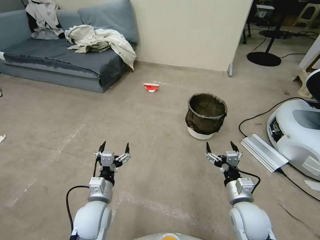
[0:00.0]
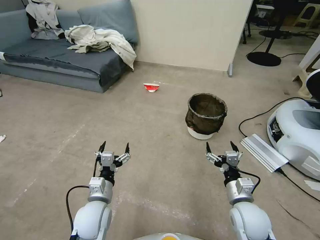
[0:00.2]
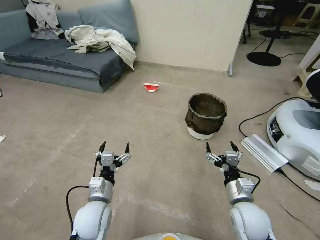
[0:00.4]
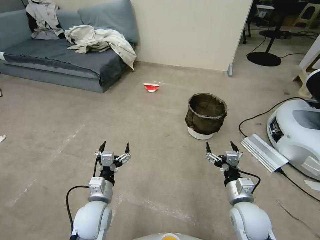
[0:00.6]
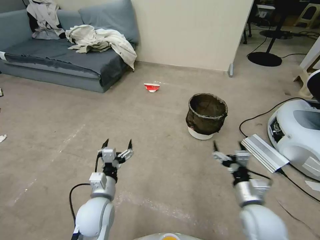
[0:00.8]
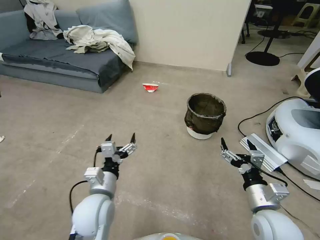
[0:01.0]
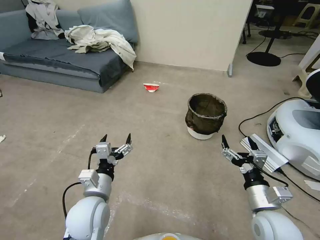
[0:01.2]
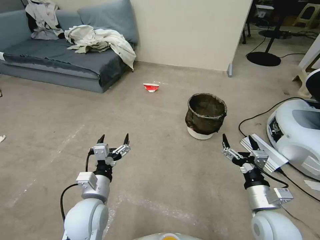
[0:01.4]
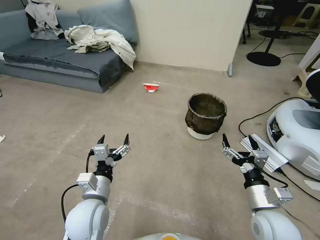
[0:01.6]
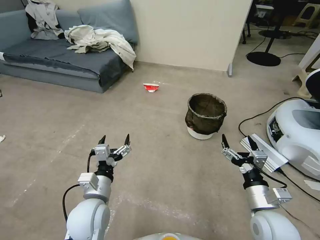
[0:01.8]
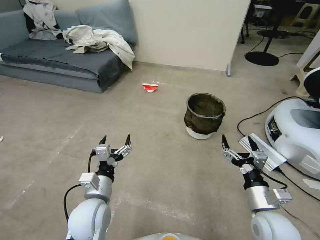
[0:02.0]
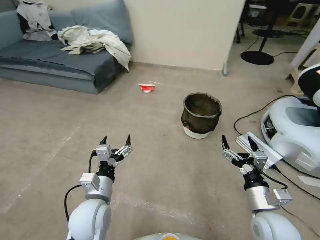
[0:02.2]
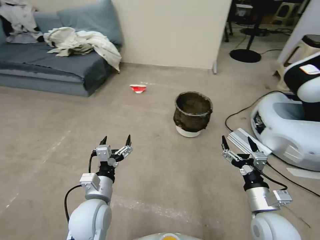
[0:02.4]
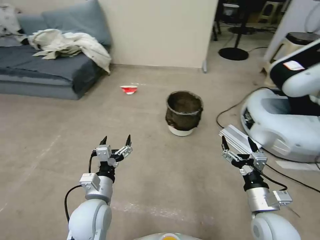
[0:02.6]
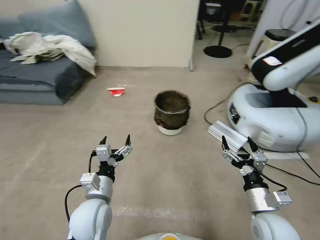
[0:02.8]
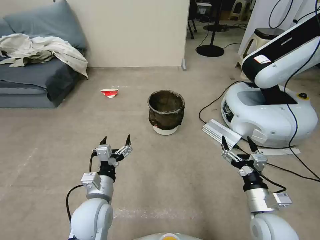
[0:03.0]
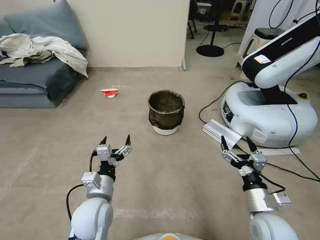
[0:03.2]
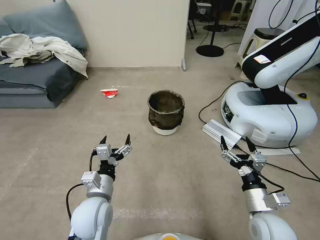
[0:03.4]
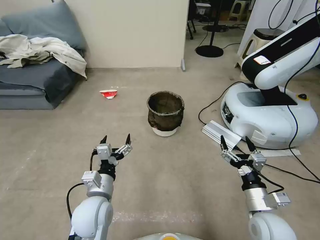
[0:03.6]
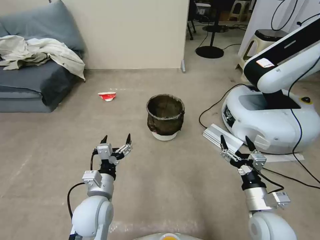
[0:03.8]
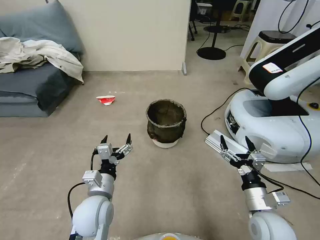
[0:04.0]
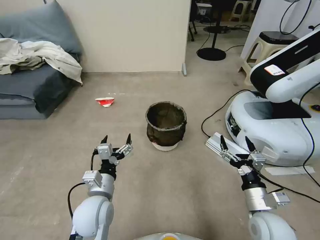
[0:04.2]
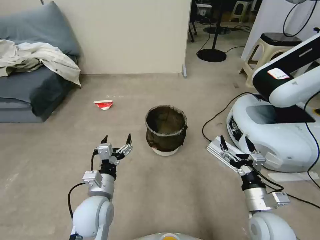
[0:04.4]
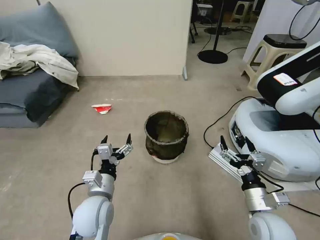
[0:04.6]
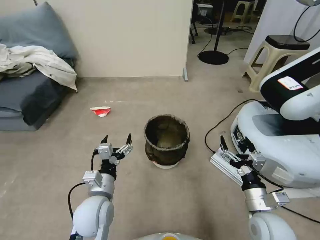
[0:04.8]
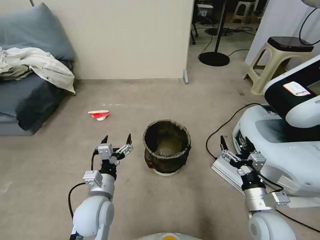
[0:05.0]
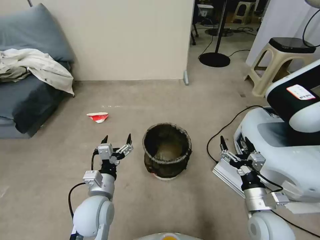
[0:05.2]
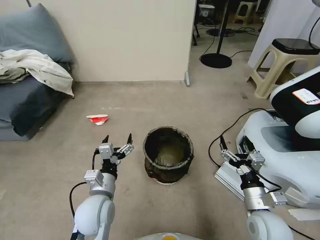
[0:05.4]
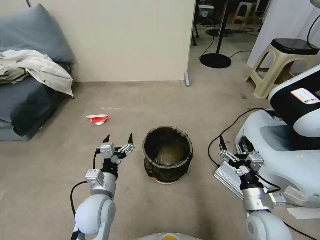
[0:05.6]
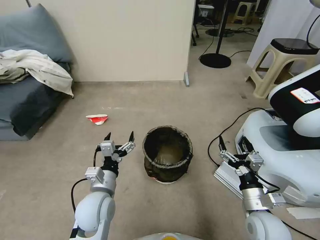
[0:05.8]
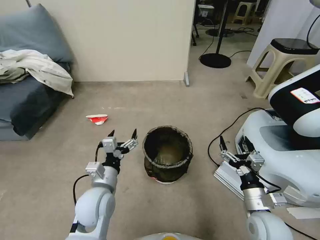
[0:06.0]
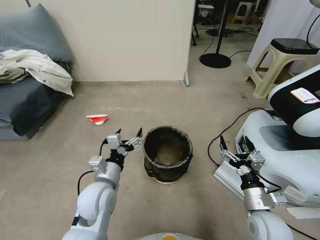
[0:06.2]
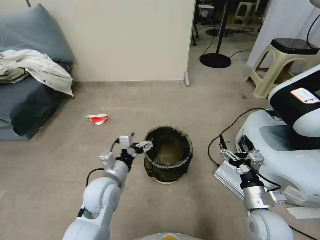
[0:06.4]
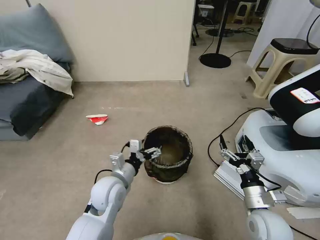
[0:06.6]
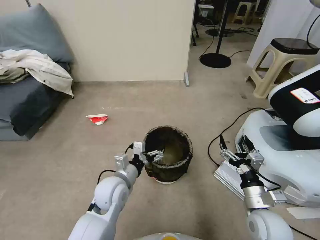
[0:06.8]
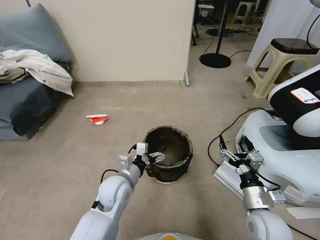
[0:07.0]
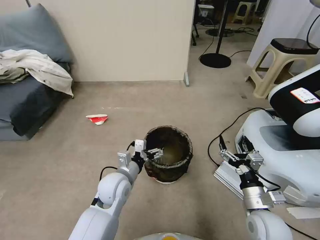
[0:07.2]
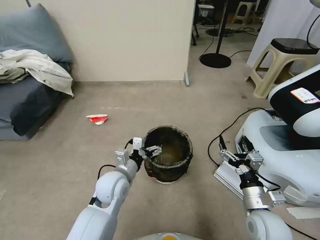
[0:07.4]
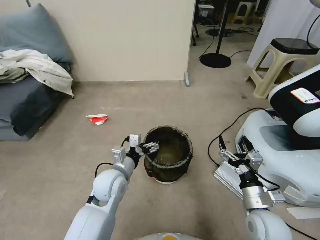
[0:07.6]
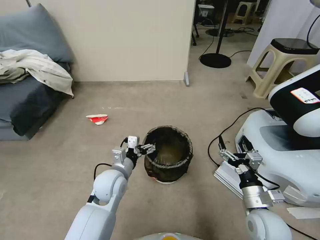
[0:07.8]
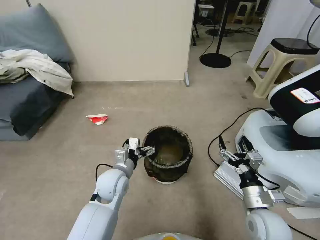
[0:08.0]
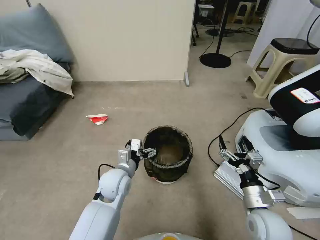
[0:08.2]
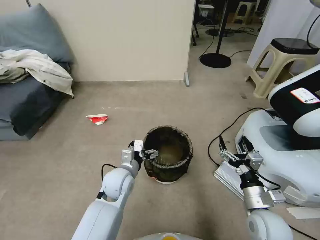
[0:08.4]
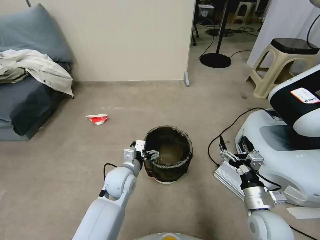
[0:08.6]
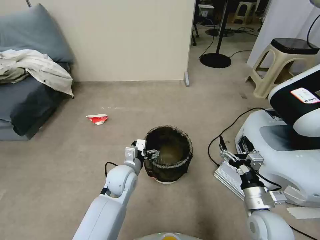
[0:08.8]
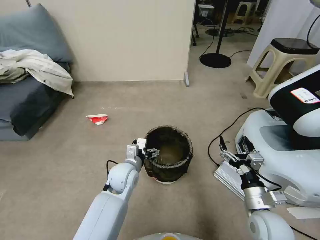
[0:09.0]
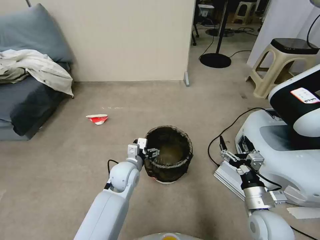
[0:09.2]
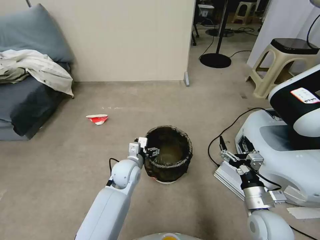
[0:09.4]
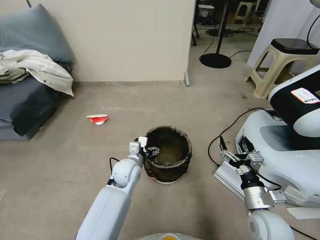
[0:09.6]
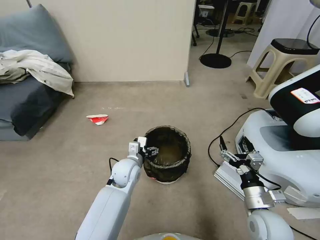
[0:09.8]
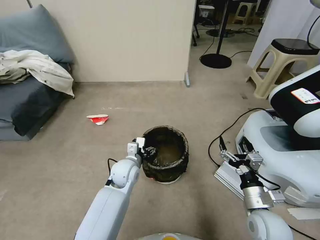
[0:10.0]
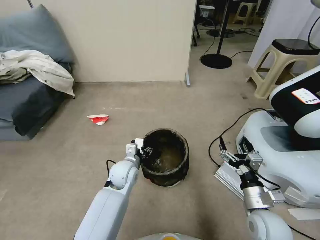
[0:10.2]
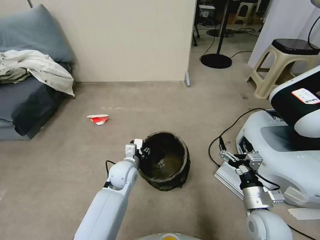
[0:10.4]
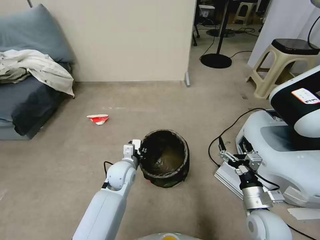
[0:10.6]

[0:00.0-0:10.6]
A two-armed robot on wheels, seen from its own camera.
Task of the whole recording: Pick up the trash can from the floor.
0:06.0 to 0:07.6: The left gripper moves forward, about 5 cm.
0:07.6 to 0:09.0: The left gripper changes place by some 5 cm.
0:09.0 to 0:10.6: The left gripper closes its fingers.

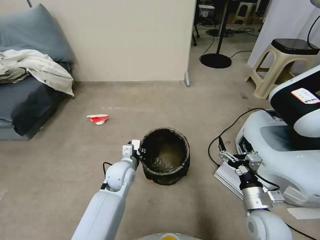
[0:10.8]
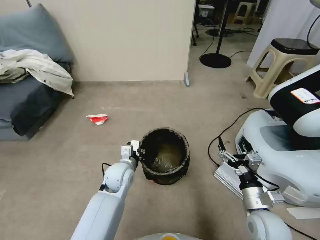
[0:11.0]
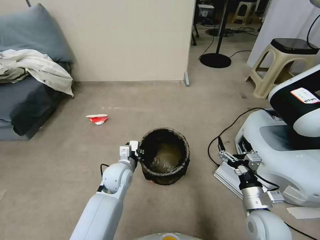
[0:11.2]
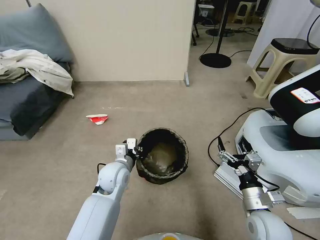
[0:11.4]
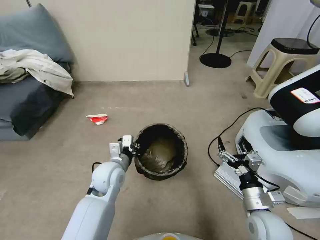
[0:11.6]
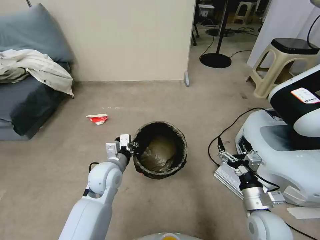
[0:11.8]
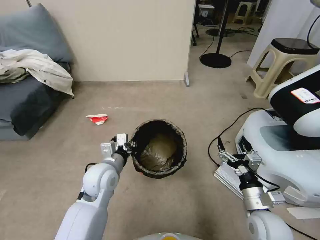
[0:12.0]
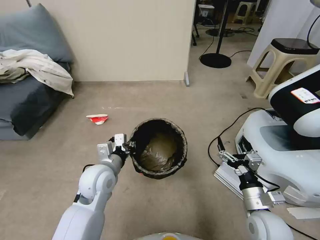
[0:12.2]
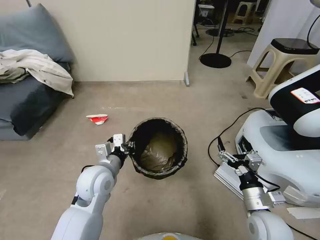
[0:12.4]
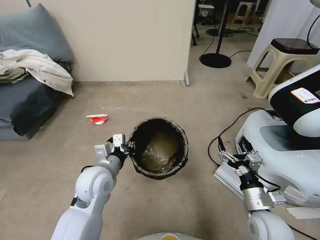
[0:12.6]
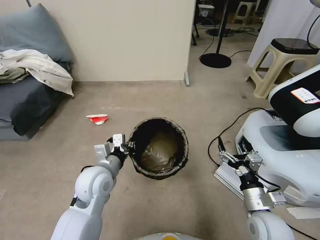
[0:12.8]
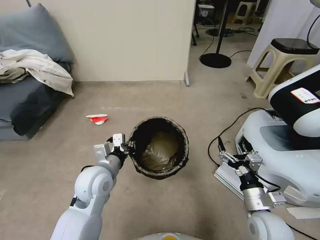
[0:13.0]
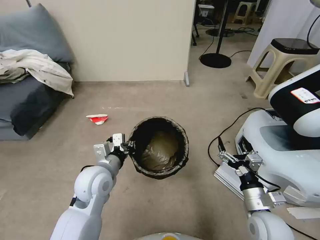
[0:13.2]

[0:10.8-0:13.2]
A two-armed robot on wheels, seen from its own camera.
Task of the whole recording: Pick up the trash can from the floor.
0:10.8 to 0:12.0: The left gripper goes about 5 cm upward.
0:12.0 to 0:13.2: There are only small adjustments of the grippers.

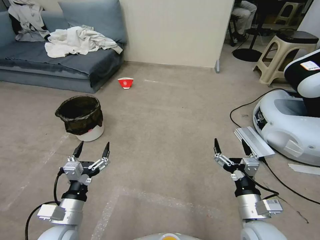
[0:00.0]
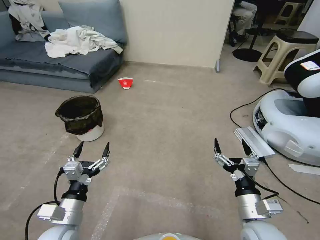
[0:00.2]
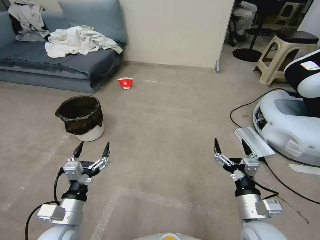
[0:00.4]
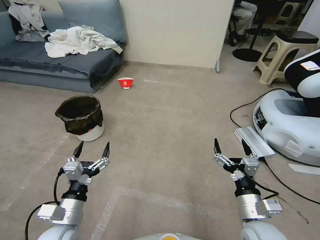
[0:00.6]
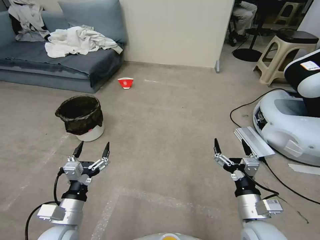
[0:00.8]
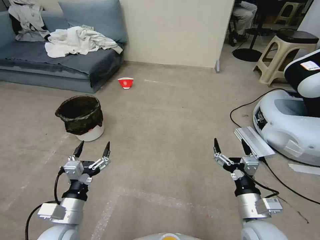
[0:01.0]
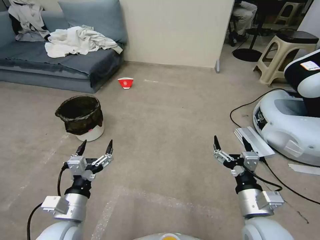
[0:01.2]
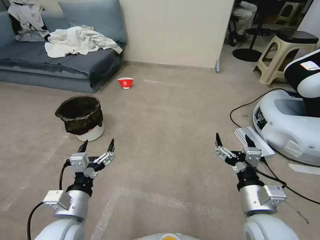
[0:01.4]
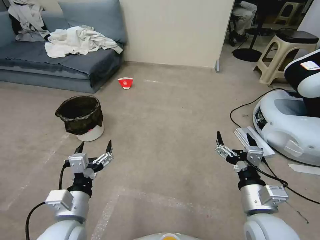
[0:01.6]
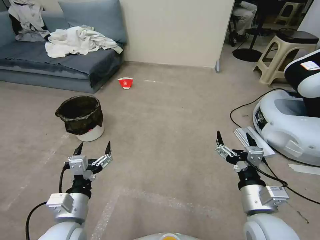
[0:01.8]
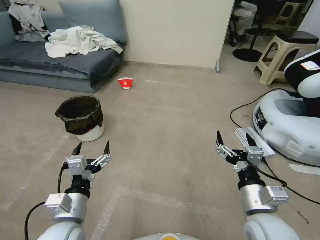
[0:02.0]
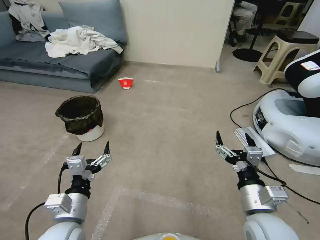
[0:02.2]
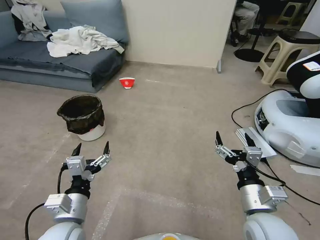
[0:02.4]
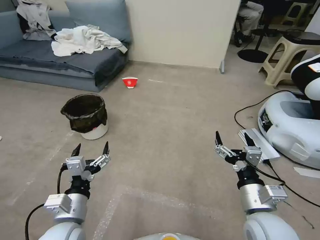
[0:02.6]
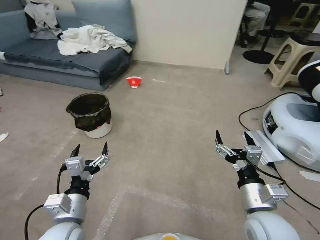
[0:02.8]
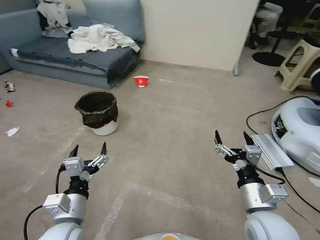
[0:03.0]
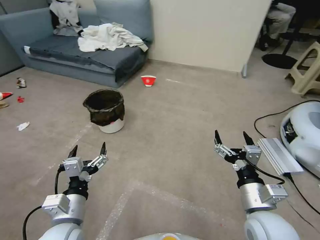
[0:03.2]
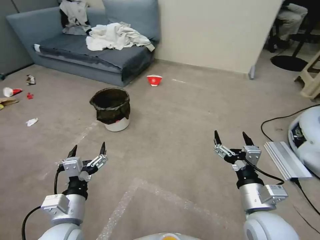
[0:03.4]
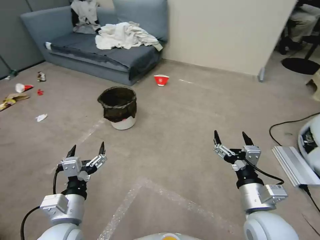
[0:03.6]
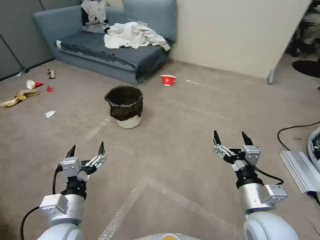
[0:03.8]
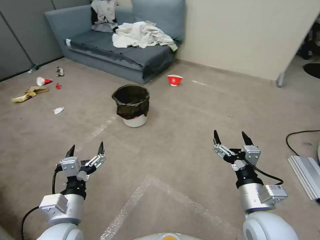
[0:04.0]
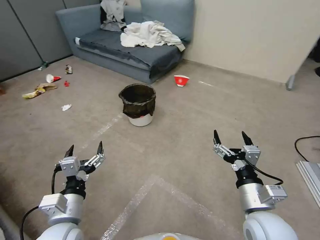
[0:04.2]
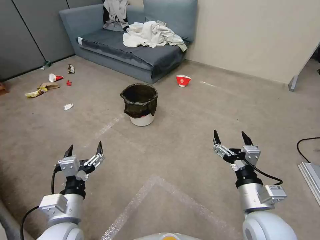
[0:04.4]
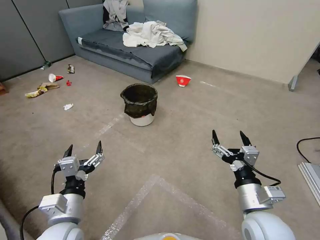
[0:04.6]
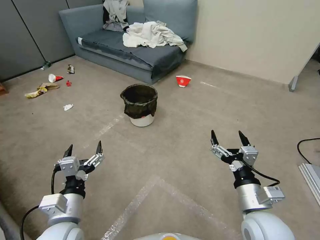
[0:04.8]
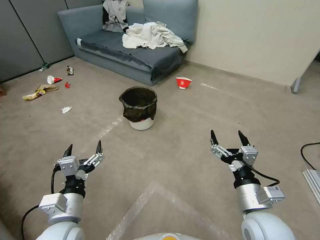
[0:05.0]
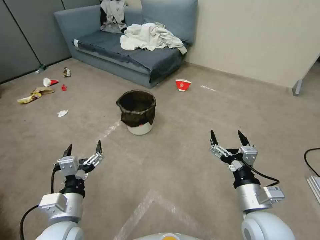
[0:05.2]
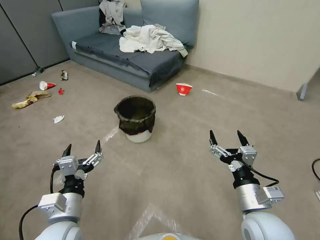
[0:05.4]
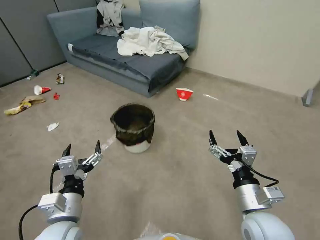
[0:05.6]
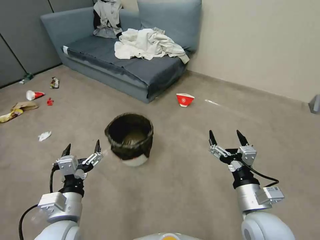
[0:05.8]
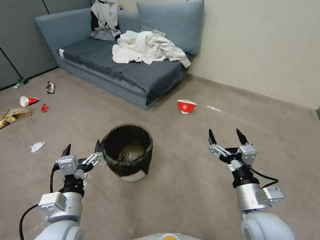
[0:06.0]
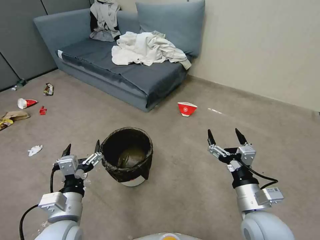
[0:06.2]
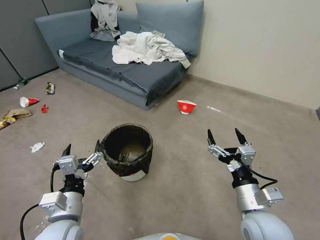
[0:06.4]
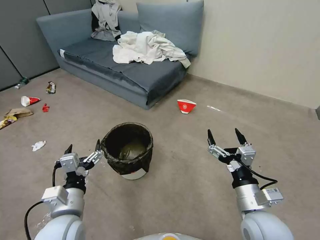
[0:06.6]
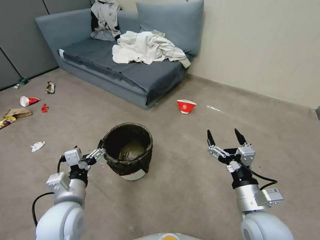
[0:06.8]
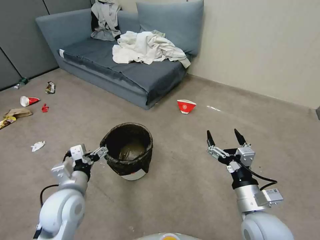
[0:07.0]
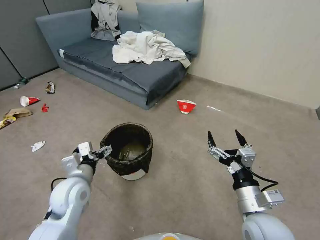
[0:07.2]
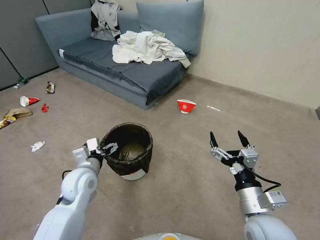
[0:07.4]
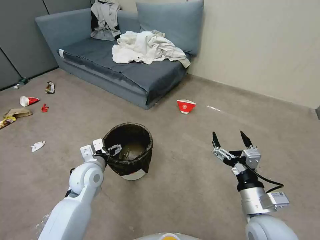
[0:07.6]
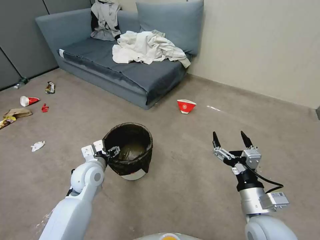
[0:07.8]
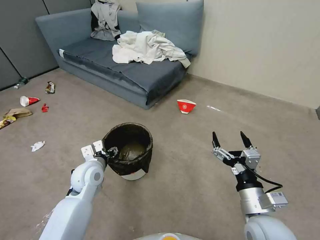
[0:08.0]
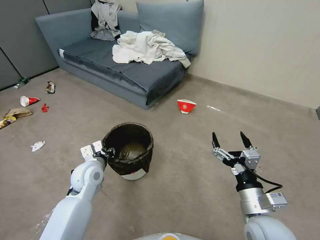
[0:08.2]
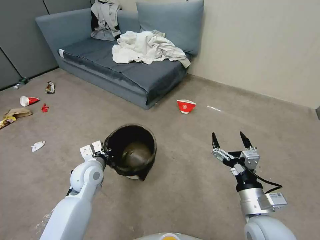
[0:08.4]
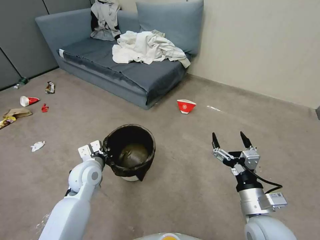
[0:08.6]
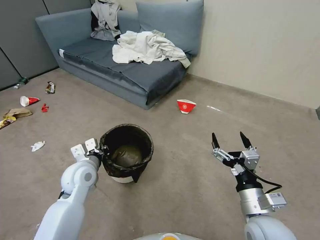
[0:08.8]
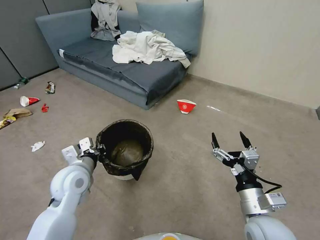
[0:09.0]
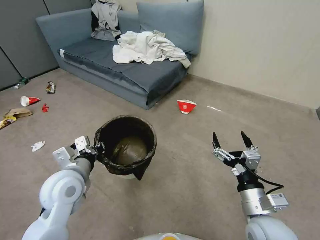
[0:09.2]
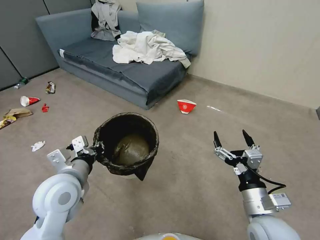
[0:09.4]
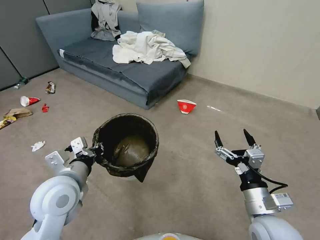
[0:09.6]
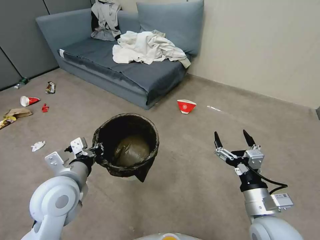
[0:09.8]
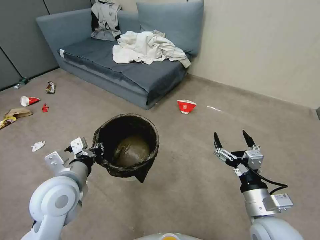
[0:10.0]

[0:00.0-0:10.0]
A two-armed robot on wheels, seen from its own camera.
Task of the whole recording: Pick up the trash can from the floor.
0:05.8 to 0:07.2: The left gripper moves forward, some 10 cm.
0:07.2 to 0:08.6: The left gripper shifts about 5 cm forward, and closes its fingers.
0:08.6 to 0:10.0: The left gripper travels upward and backward by about 15 cm.
